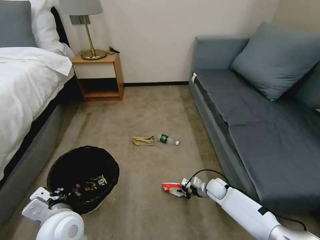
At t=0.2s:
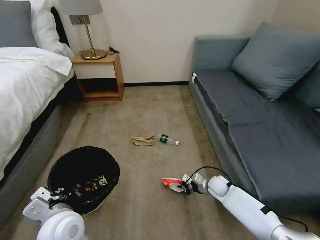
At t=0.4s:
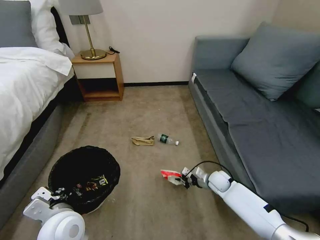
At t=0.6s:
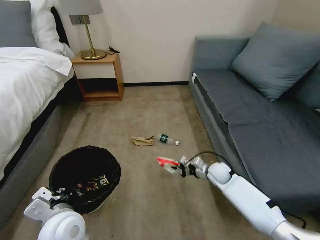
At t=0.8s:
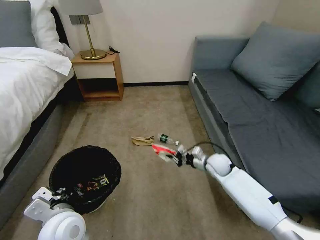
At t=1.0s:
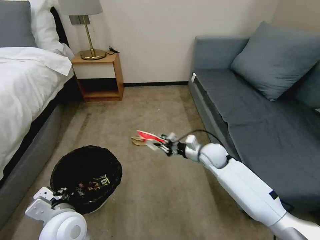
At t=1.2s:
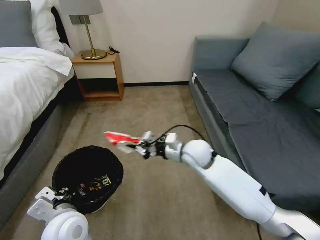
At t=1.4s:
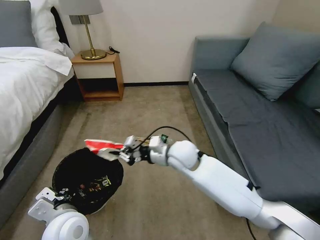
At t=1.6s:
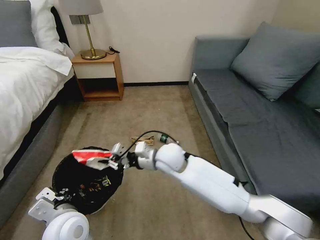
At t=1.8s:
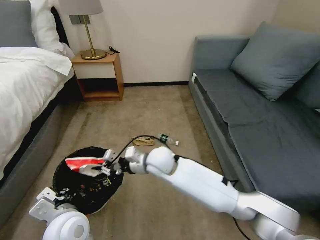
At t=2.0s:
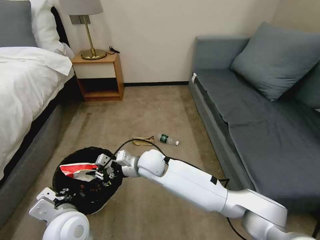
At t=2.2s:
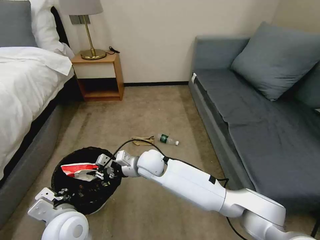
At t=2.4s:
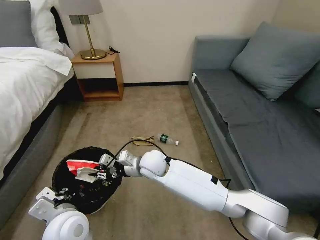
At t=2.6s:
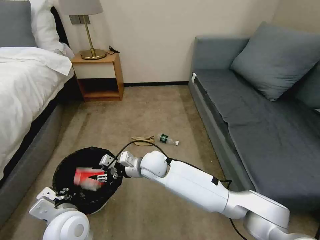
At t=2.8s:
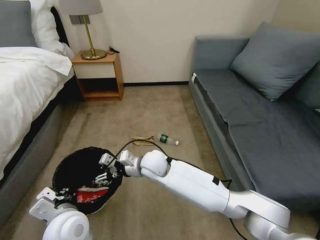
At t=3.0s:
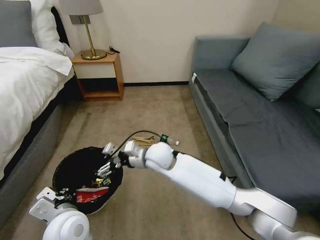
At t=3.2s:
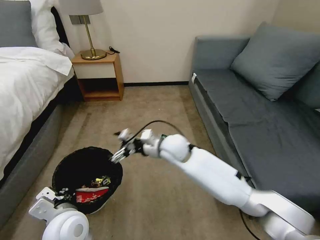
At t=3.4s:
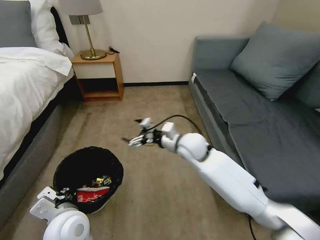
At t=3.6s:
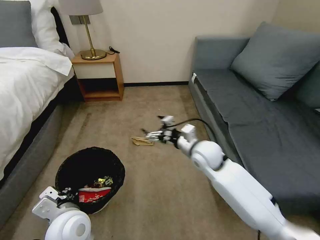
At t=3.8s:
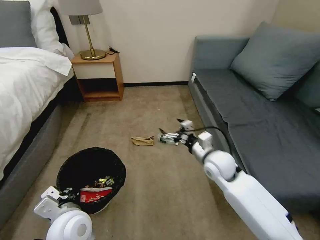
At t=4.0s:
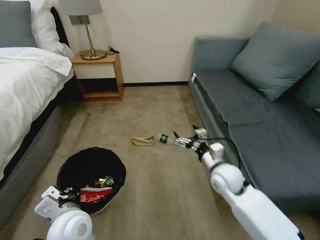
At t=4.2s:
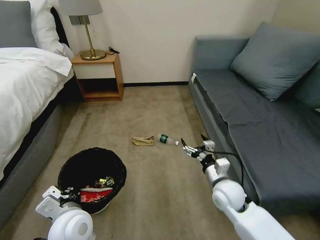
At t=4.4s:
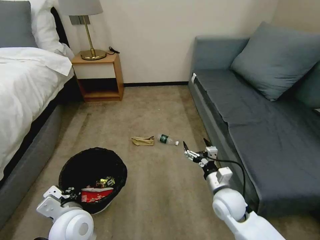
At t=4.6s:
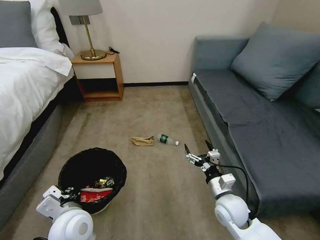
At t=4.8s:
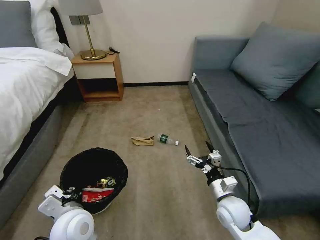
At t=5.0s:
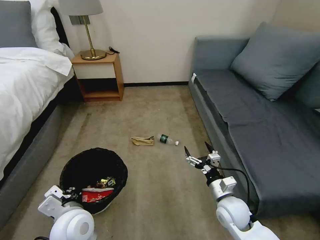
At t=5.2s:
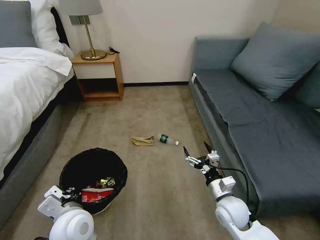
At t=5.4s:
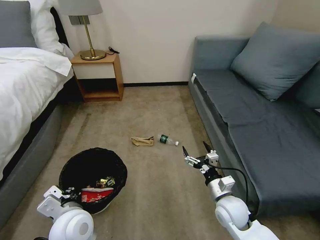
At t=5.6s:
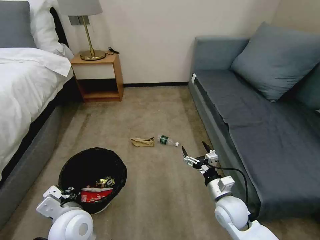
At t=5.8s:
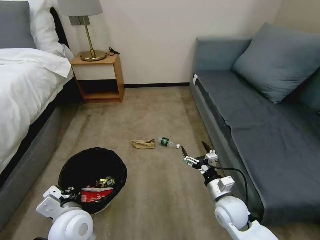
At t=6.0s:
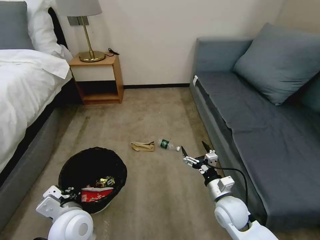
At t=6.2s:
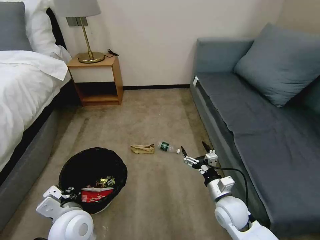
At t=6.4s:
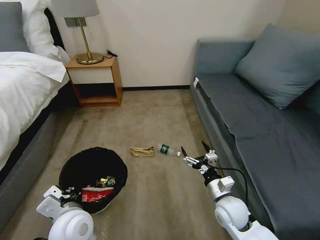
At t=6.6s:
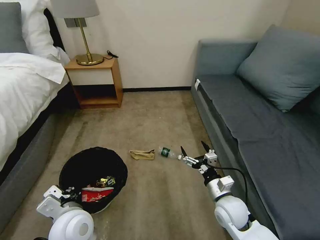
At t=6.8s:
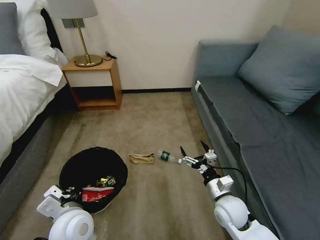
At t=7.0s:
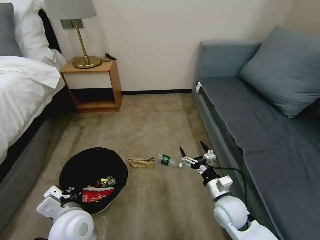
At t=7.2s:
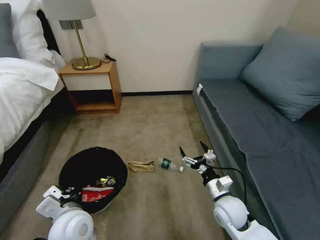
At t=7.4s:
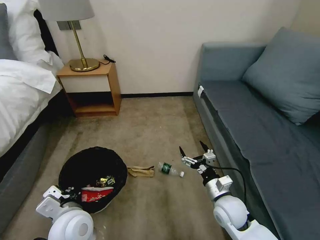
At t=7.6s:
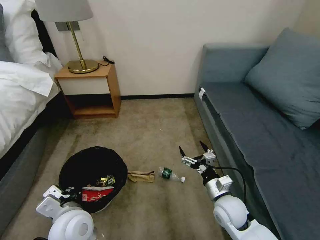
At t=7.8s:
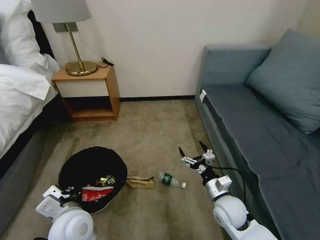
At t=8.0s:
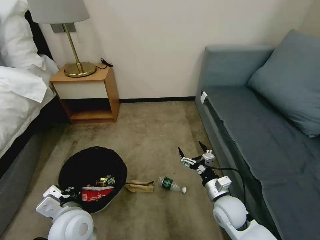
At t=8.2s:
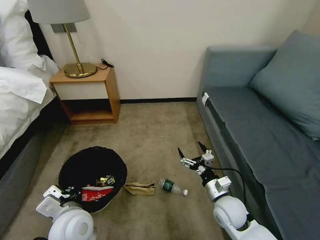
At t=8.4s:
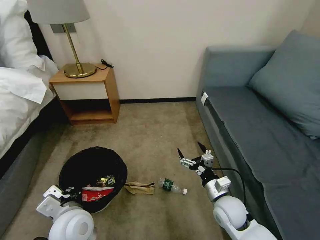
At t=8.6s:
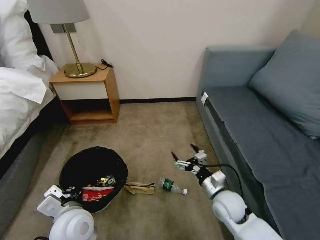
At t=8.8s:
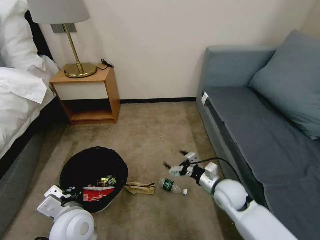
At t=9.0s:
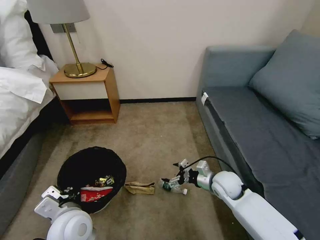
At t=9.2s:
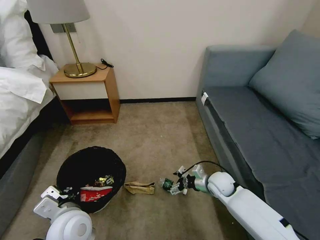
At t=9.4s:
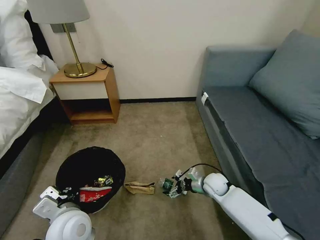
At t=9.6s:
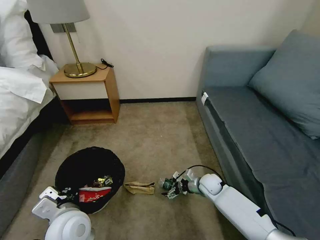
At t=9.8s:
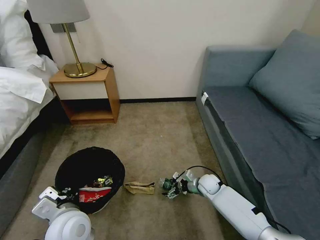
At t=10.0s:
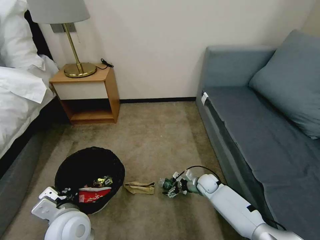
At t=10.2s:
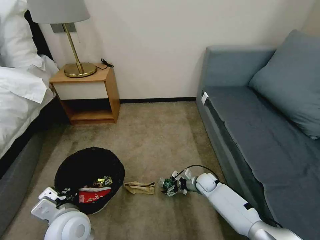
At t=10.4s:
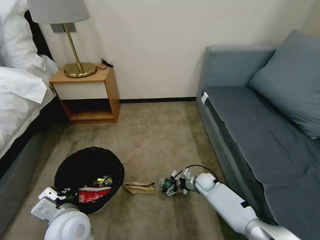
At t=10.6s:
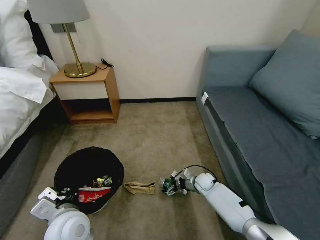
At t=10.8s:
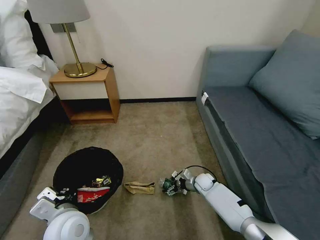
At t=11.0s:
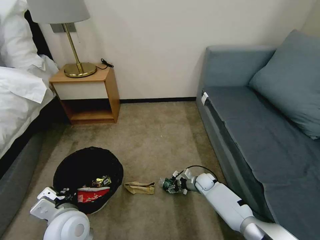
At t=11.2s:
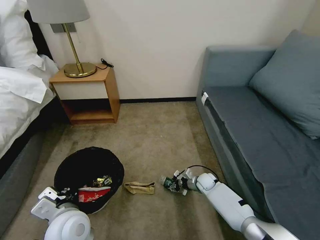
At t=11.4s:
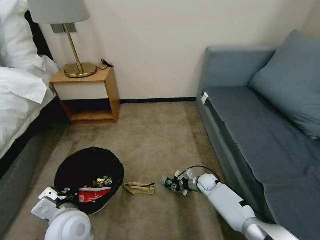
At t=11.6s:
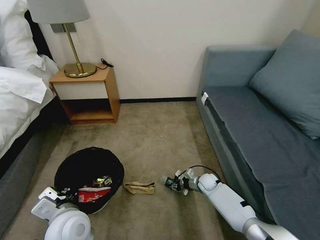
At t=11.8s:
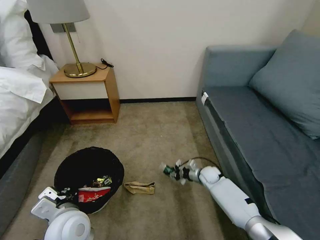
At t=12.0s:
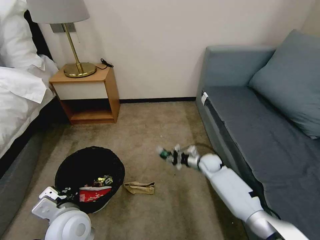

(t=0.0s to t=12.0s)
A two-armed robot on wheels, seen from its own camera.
Task of the whole recording: Pick up the trash bin, then pick up the garbage on the floor and place it into the trash bin.
t=0.0s - t=1.6s: The right gripper goes roughly 35 cm upward and to the left.
t=1.6s - t=3.0s: The right gripper opens.
t=3.0s - t=4.4s: The right gripper shifts some 25 cm to the right and backward.
t=4.4s - t=6.0s: There are only small adjustments of the grippers.
t=7.6s - t=9.0s: The right gripper travels forward by about 10 cm.
t=9.0s - t=10.4s: The right gripper moves downward and forward, some 20 cm.
t=10.4s - t=12.0s: The right gripper moves upward, approximately 10 cm, and closes up.

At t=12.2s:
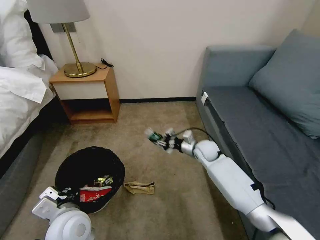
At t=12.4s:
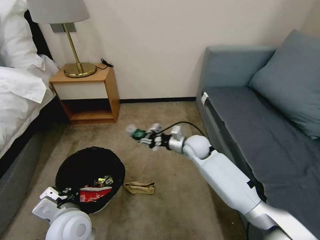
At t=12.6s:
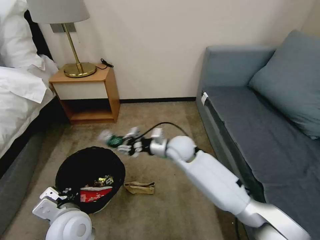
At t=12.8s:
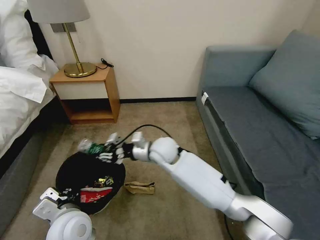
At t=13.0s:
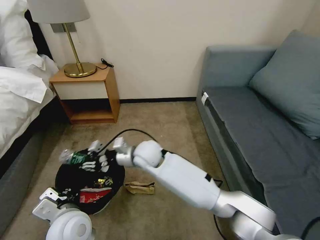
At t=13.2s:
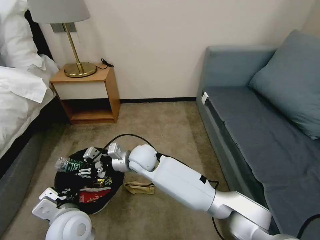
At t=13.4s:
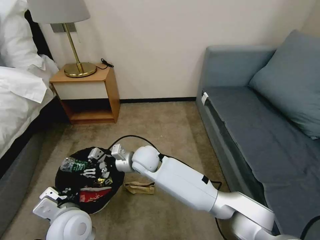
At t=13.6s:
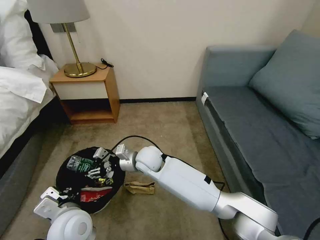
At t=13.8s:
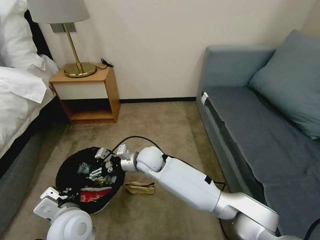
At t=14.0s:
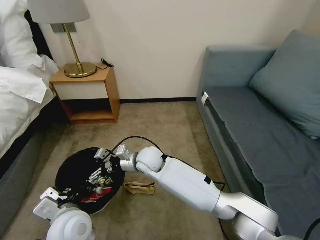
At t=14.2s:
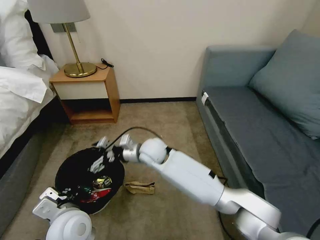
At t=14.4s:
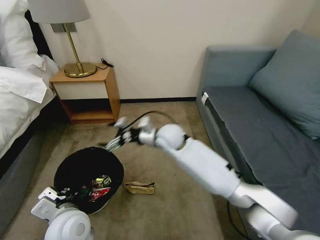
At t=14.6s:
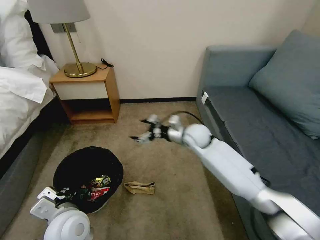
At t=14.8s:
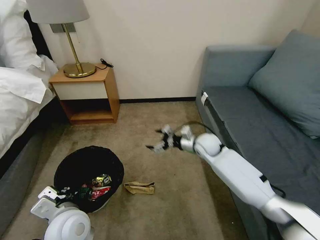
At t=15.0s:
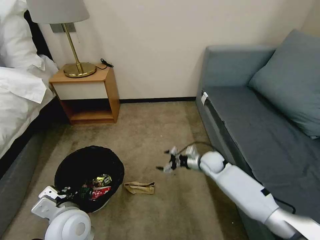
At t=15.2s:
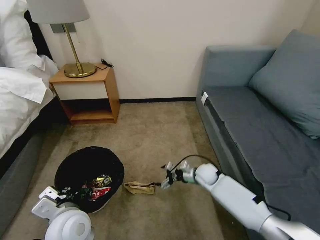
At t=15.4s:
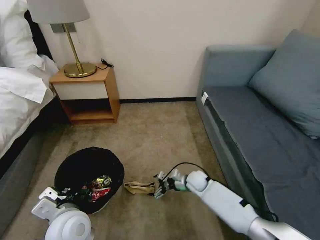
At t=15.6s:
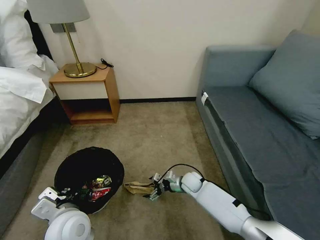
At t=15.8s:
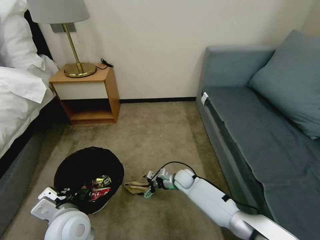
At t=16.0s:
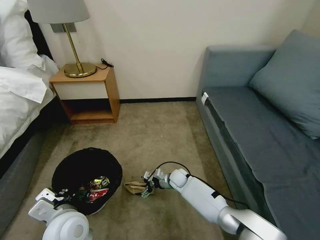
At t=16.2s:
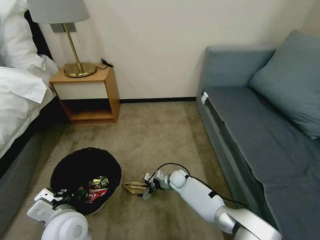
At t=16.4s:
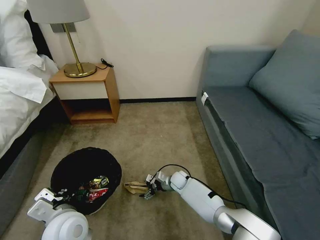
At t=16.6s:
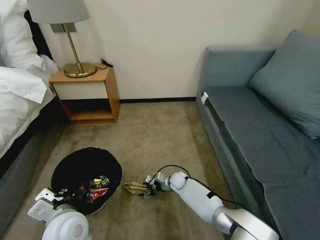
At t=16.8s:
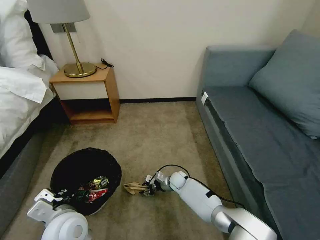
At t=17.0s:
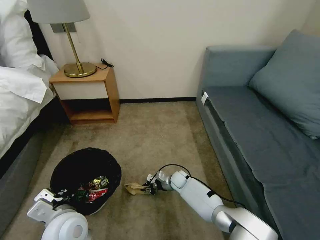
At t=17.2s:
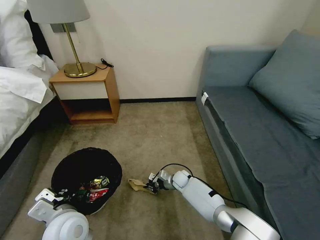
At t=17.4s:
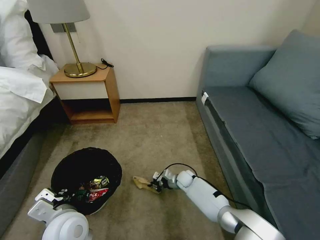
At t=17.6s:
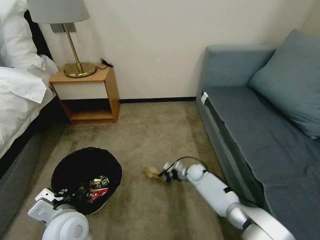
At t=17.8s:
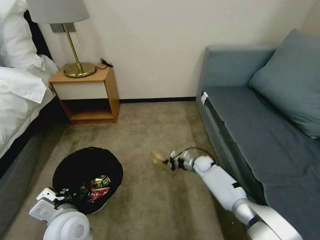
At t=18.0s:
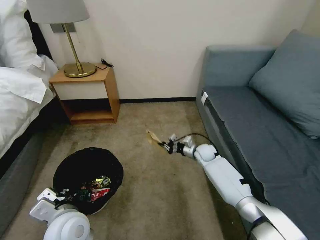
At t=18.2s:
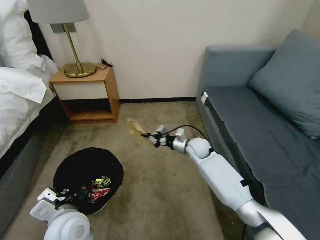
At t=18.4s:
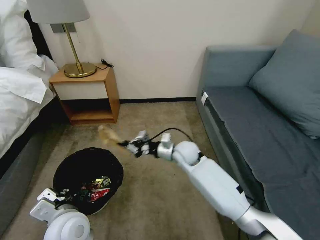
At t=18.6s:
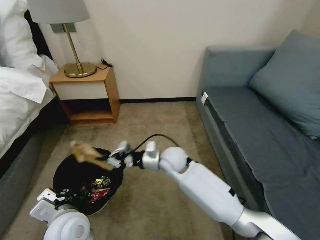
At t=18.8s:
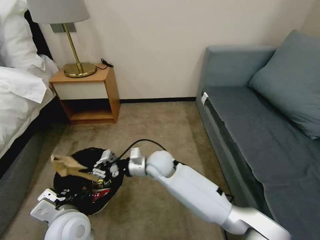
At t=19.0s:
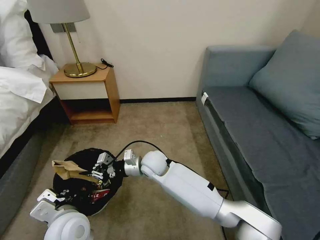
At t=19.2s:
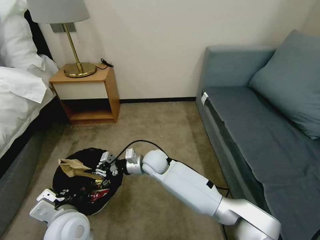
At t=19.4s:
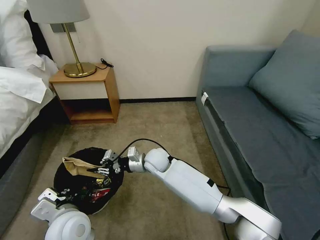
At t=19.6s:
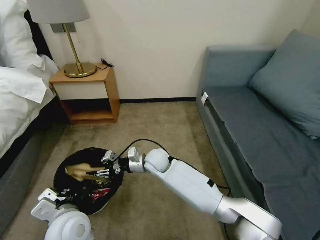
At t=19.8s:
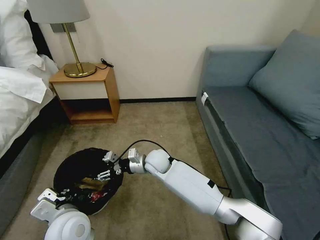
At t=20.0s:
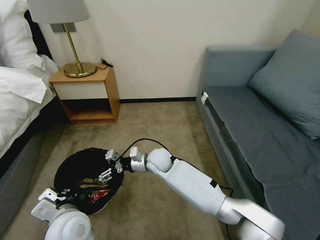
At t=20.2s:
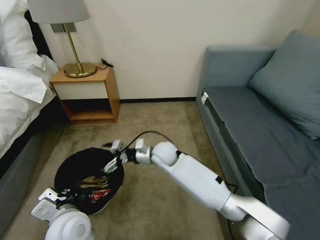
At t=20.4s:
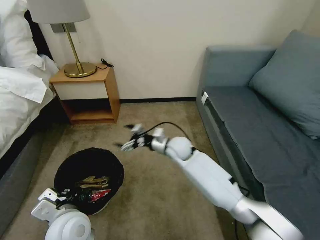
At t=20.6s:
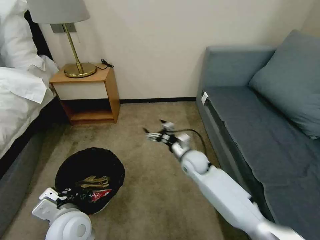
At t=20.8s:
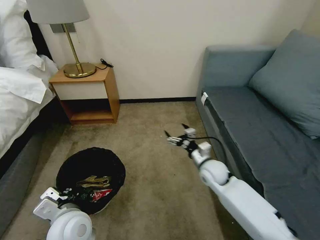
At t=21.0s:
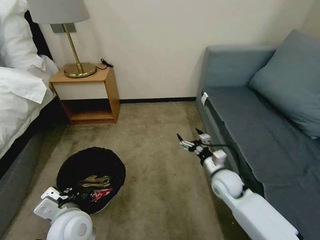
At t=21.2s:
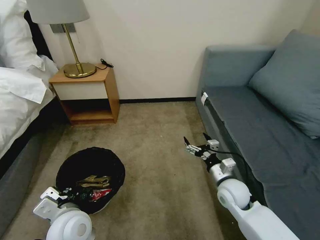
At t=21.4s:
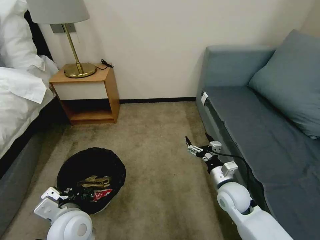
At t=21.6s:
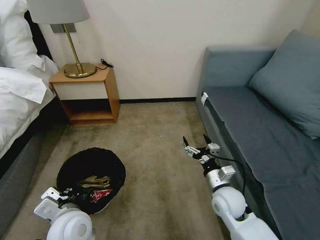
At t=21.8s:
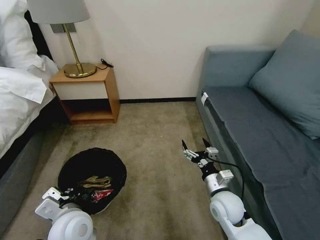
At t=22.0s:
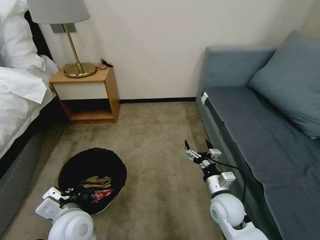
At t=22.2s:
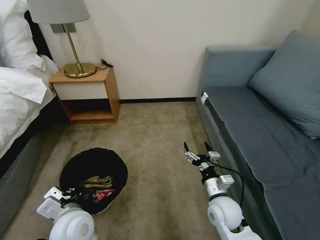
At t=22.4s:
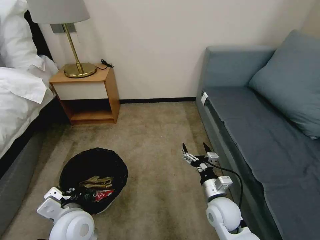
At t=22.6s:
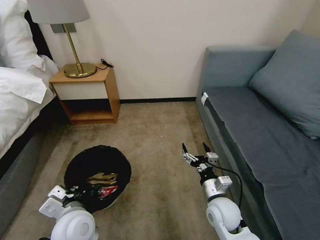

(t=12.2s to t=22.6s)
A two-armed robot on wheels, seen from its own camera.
Task of the whole recording: Pick up the trash bin, then pick up the garbage on the floor and place it into the trash bin.
t=12.2s - t=13.6s: The right gripper shifts about 25 cm to the left.
t=13.6s - t=15.2s: The right gripper heads to the right and downward, covering approximately 30 cm, and opens up.
t=15.2s - t=16.6s: The right gripper shifts some 15 cm to the left and downward.
t=16.6s - t=18.2s: The right gripper heads upward, covering approximately 20 cm, and closes.
t=18.2s - t=19.6s: The right gripper goes roughly 15 cm to the left, and opens its fingers.
t=19.6s - t=21.2s: The right gripper goes roughly 30 cm to the right and backward, and opens.
t=21.2s - t=22.6s: The right gripper heads backward, covering about 5 cm.
